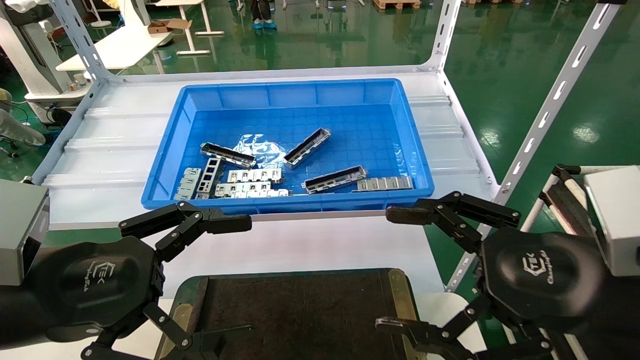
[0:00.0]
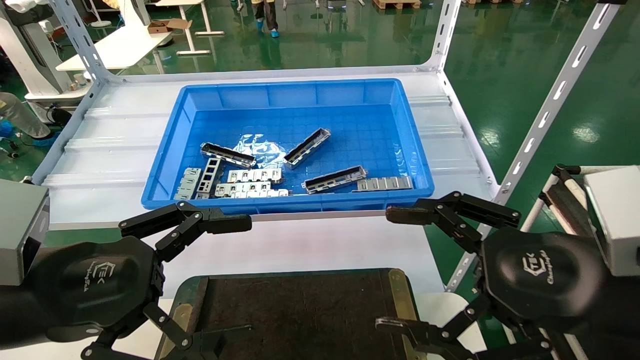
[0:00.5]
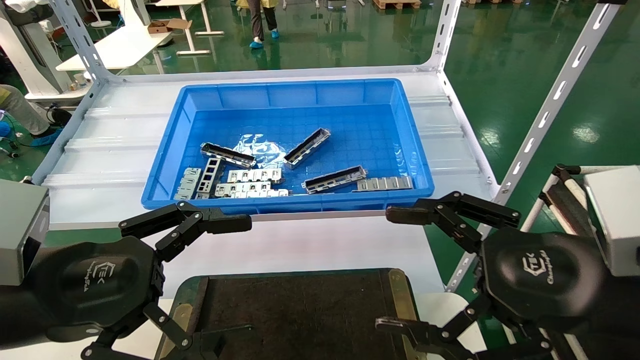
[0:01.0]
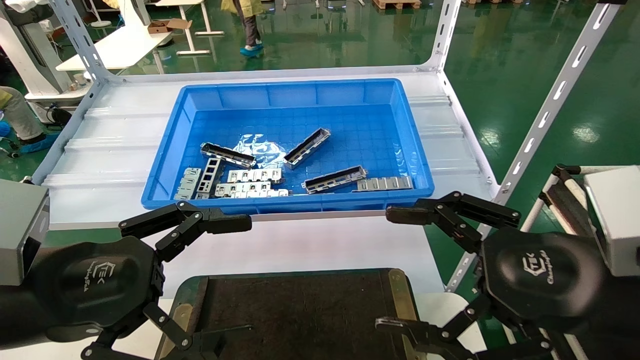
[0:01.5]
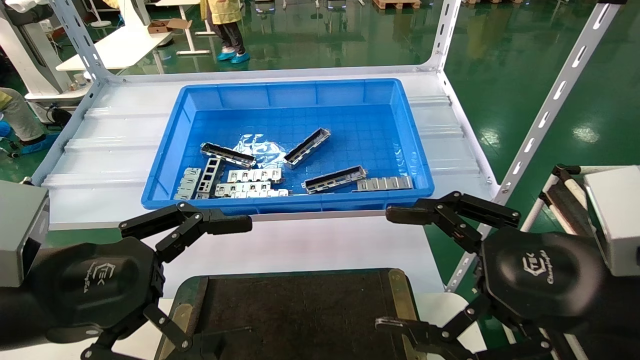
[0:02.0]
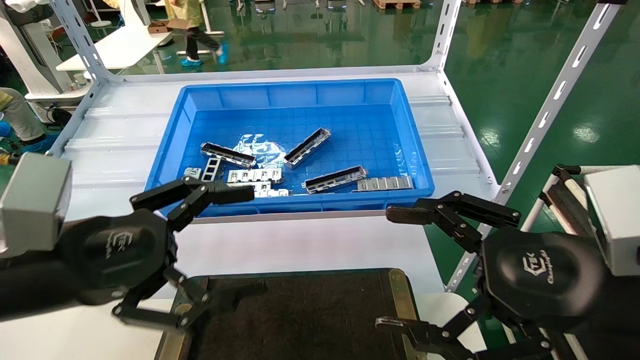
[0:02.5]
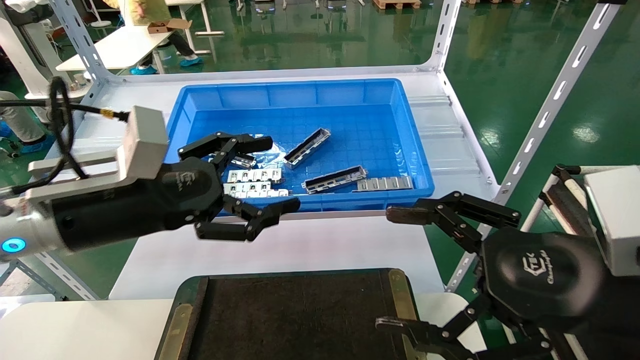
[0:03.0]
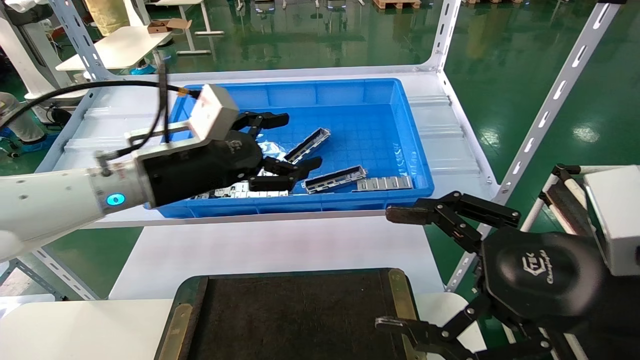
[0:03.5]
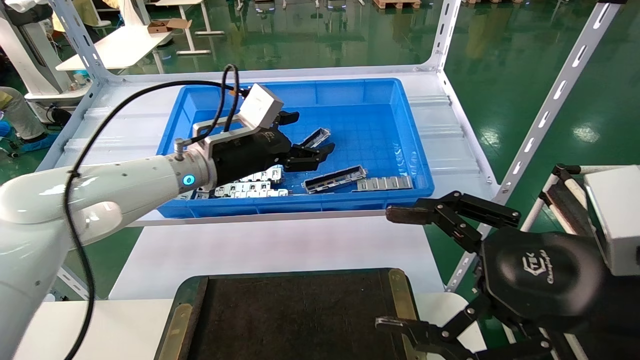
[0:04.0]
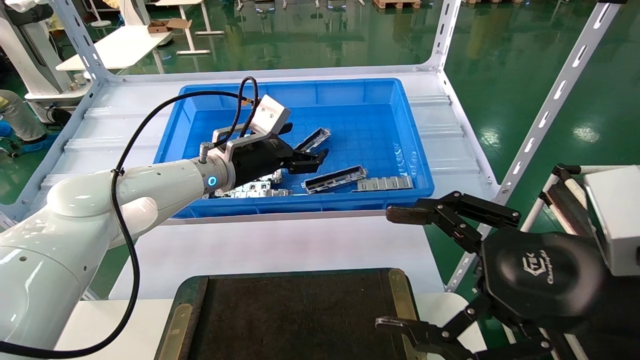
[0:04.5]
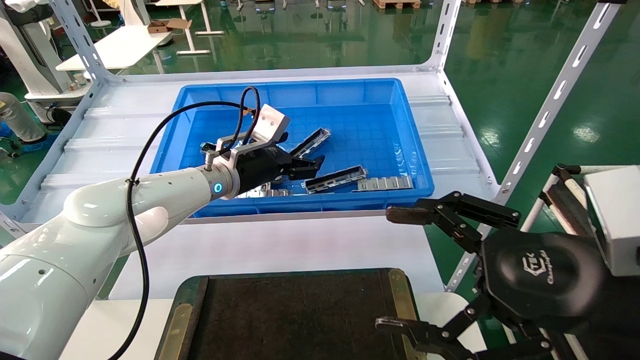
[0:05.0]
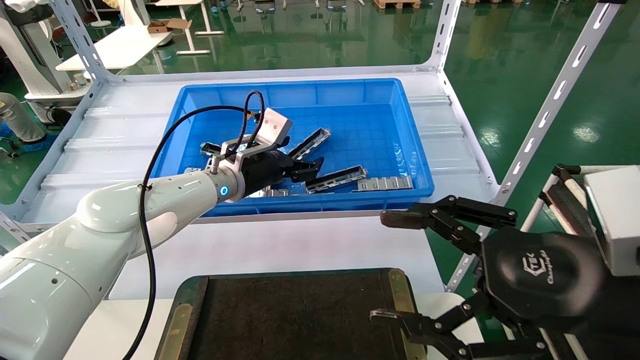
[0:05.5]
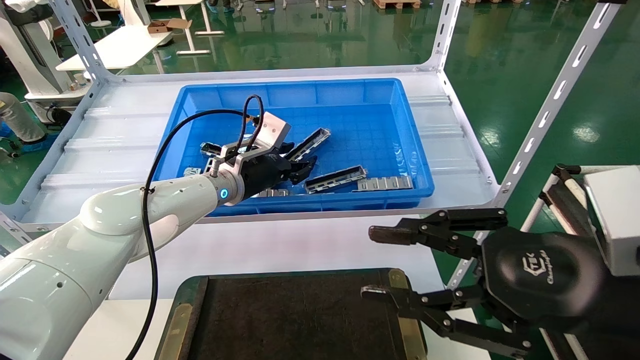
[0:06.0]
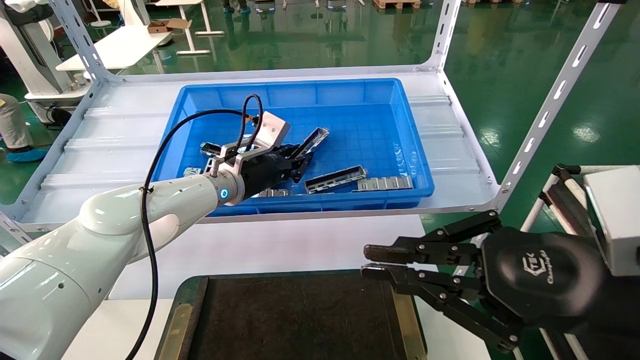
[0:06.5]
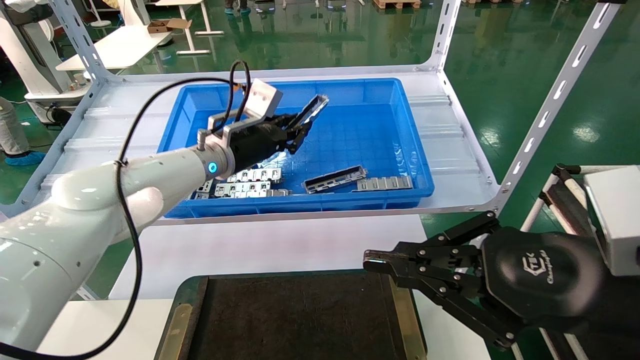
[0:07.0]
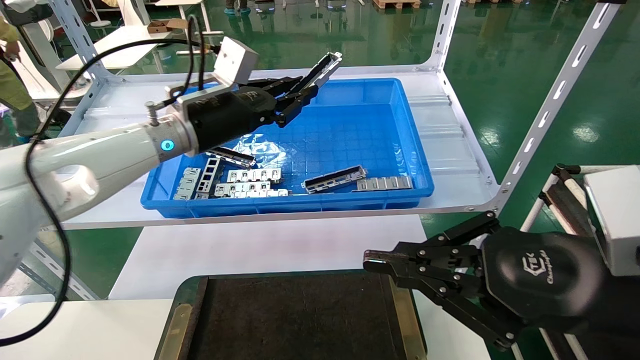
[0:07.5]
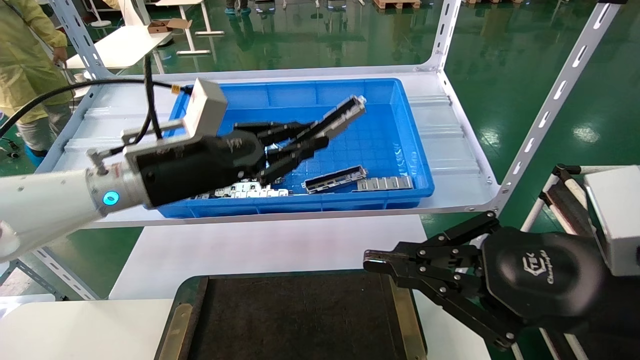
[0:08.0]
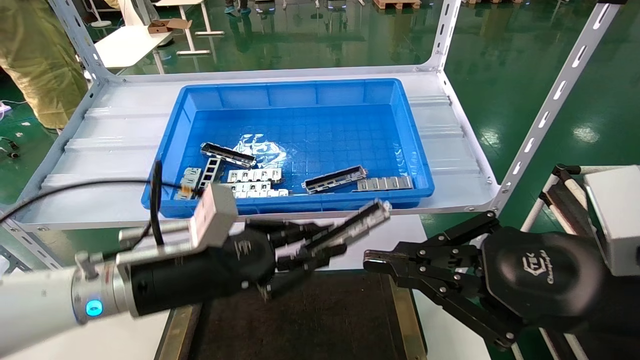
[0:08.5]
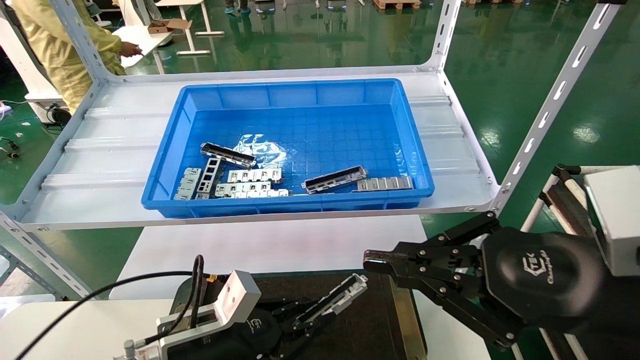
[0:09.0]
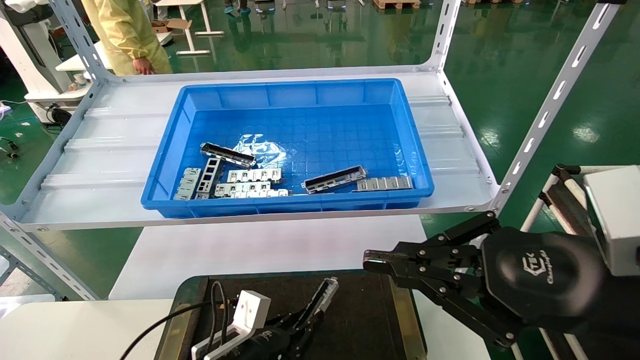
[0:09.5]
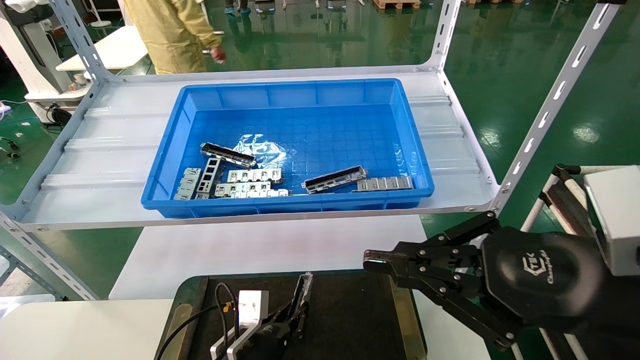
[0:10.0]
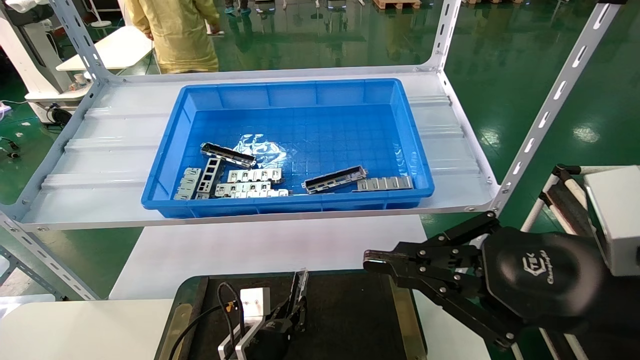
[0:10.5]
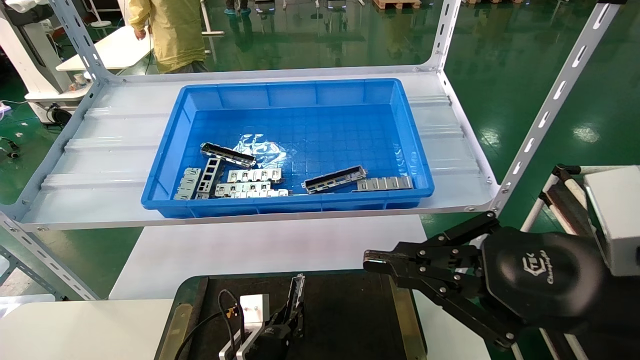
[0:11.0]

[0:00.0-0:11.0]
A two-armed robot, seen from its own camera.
Task of the whole recording: Grasp the part with one hand and place it on the black container.
Step, 0:02.5 to 0:06.0: Pick up the front USB bracket from the feeding area.
0:00.0 to 0:02.0: The two grippers keep their place.
0:02.0 to 0:03.5: The left gripper shifts some 20 cm forward.
0:03.5 to 0:05.5: The left gripper heads forward and to the right, covering about 15 cm.
0:05.5 to 0:07.5: The left gripper is displaced upward and backward by approximately 10 cm, and closes; the right gripper closes its fingers.
0:07.5 to 0:09.0: The left gripper moves downward and backward, about 30 cm.
0:09.0 to 0:11.0: The left gripper heads downward, to the right and forward, covering some 15 cm.

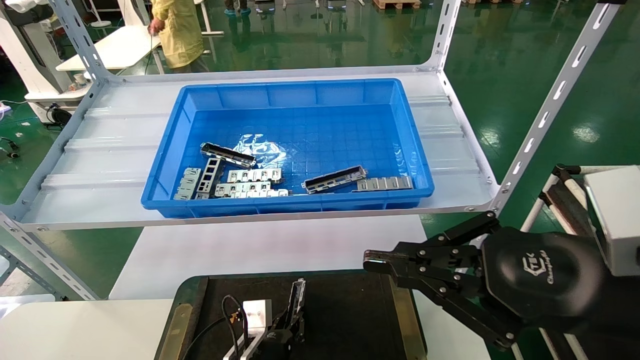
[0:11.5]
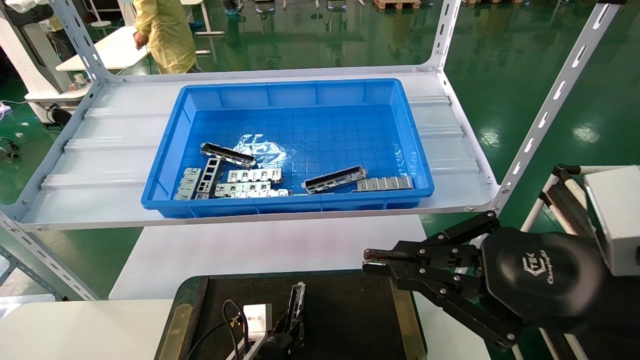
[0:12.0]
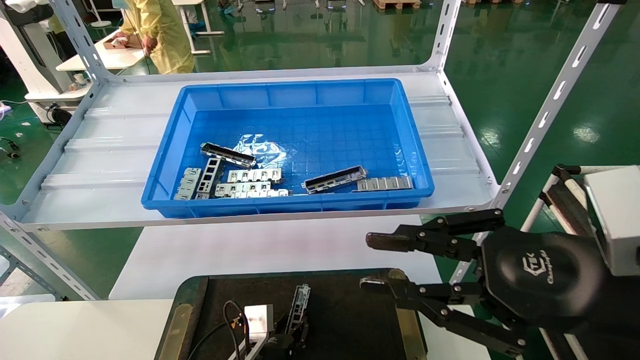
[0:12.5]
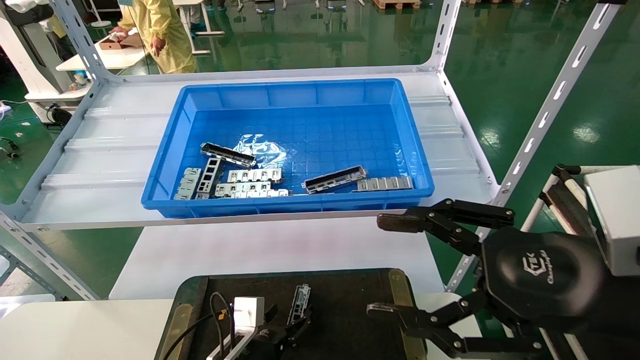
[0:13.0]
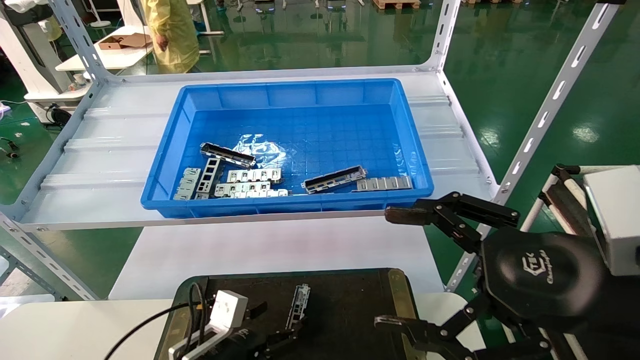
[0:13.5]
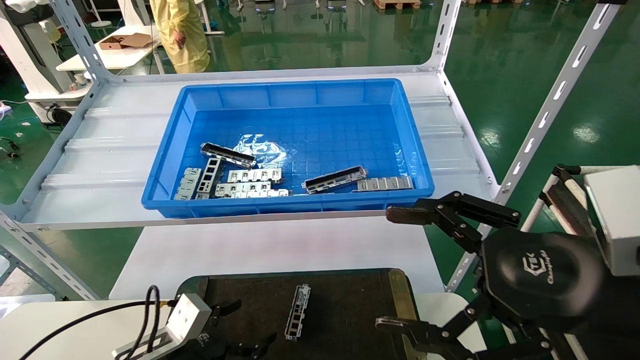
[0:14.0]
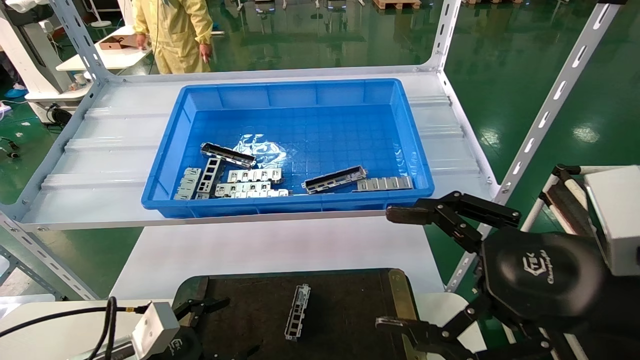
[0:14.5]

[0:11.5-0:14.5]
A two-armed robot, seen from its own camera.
Task of the whole recording: Grasp the part with one hand and place it on the black container.
0:11.5 to 0:13.0: The right gripper opens its fingers. Meanwhile the left gripper opens its fingers.
0:13.0 to 0:14.5: The left gripper moves to the left and upward, about 15 cm, and opens its fingers, while the right gripper opens up.

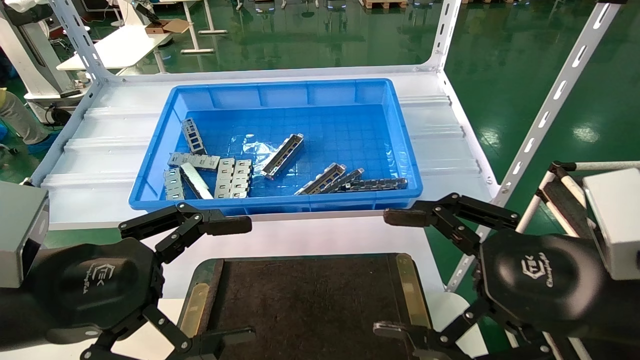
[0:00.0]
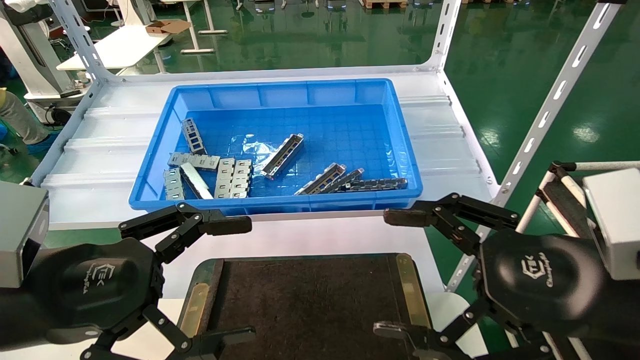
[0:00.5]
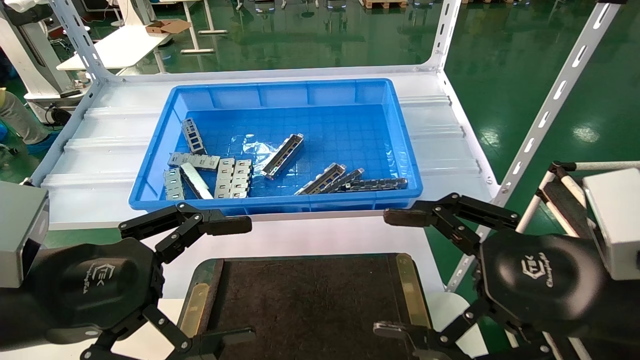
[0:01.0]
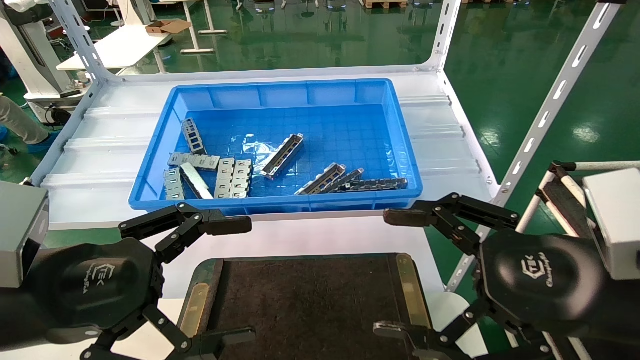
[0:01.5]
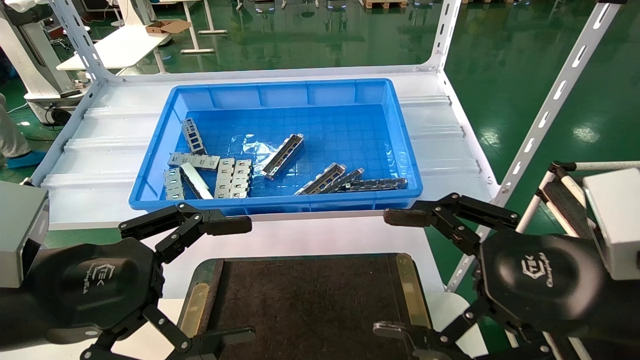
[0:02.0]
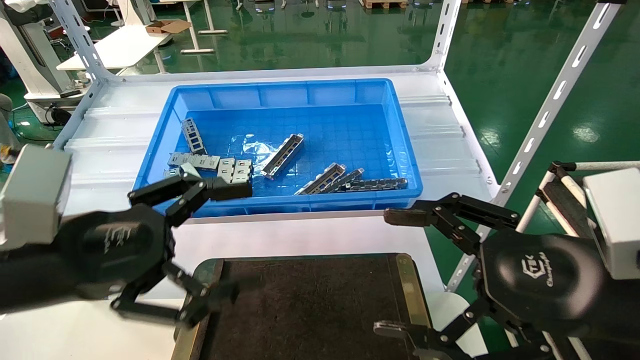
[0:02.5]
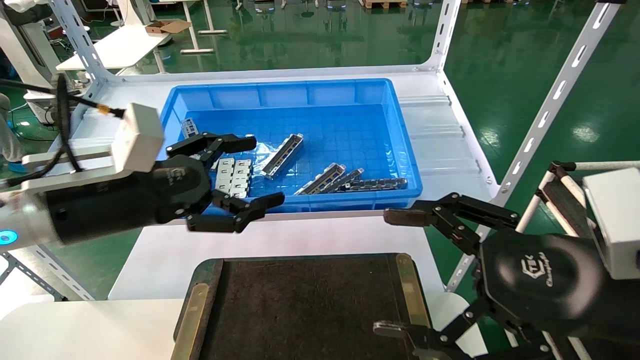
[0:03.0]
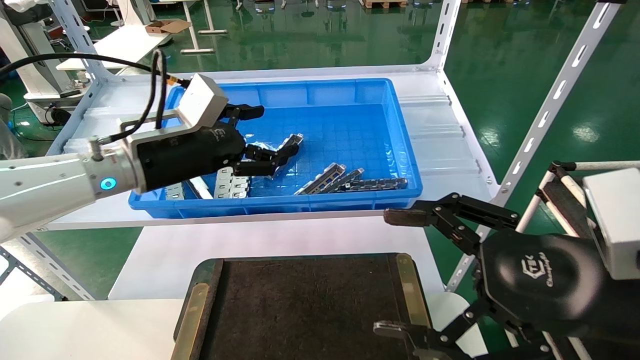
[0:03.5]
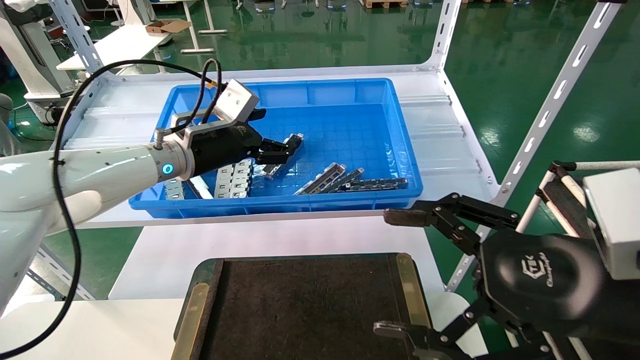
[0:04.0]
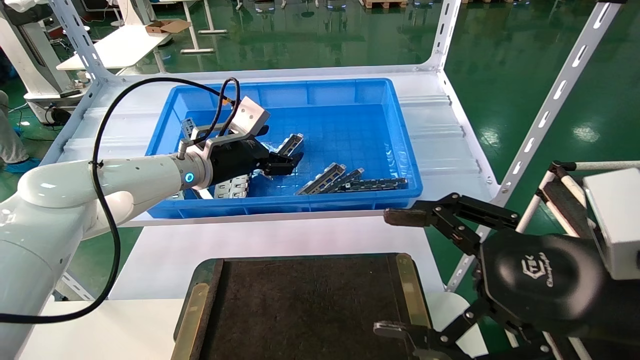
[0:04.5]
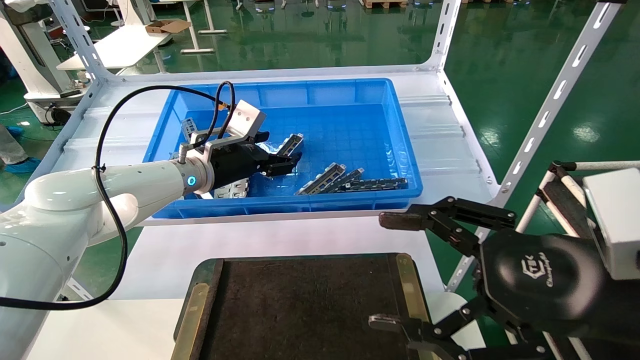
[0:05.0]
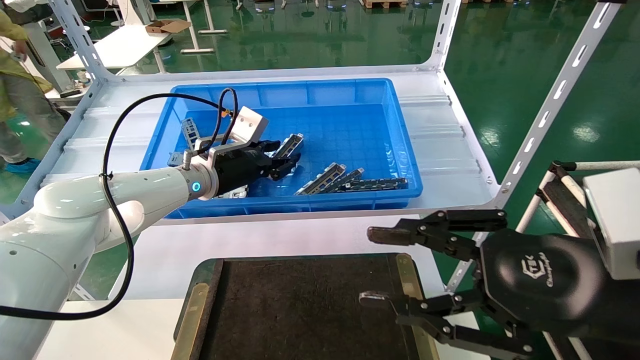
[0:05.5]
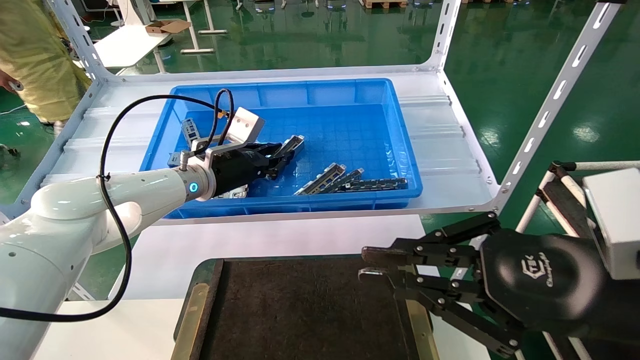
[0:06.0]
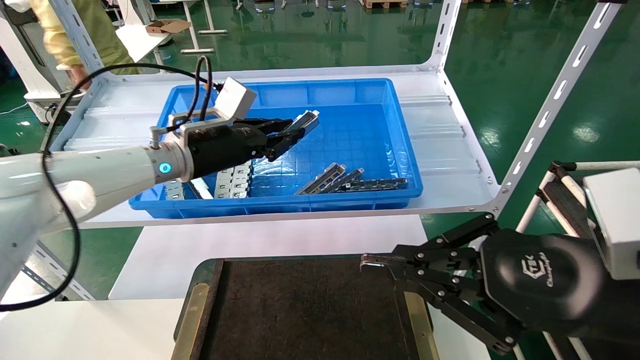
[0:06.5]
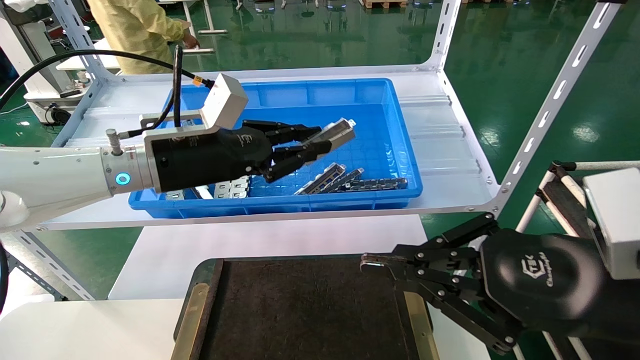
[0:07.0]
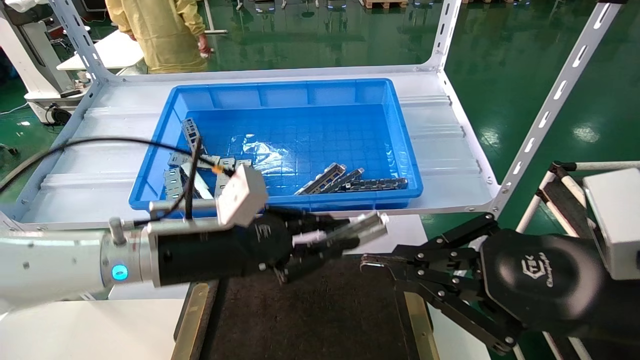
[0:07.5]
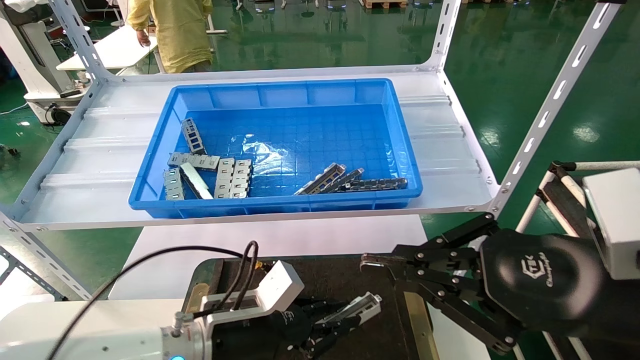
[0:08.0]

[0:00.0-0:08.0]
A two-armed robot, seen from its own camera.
Task of the whole recording: Grasp the part with one hand and place it on the black container.
Step, 0:02.5 to 0:06.5: Pick up the front USB bracket from the feeding area.
0:00.0 to 0:02.0: Neither gripper changes place.
0:02.0 to 0:04.0: The left gripper travels forward by approximately 25 cm.
0:04.0 to 0:06.0: The right gripper closes. The left gripper changes place by approximately 5 cm, and closes.
0:06.0 to 0:08.0: The left gripper moves downward and backward, roughly 25 cm.
